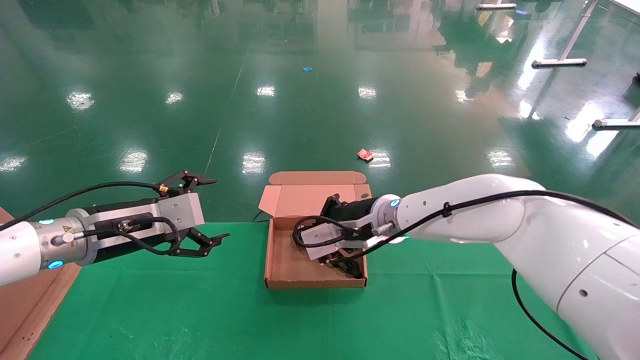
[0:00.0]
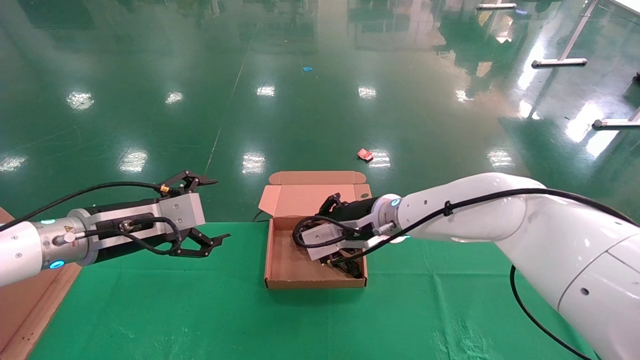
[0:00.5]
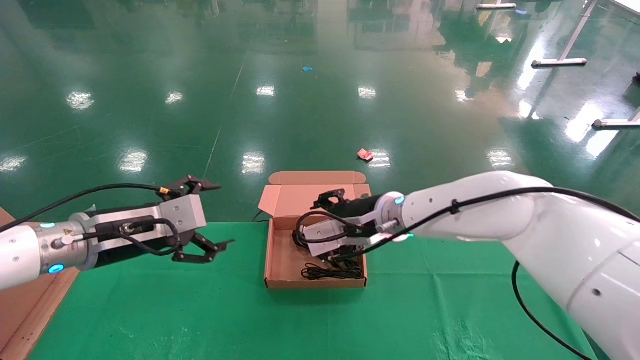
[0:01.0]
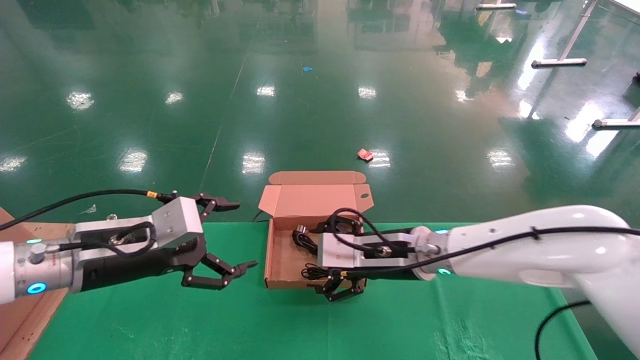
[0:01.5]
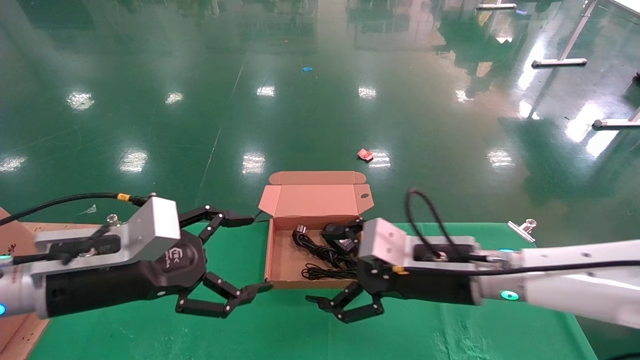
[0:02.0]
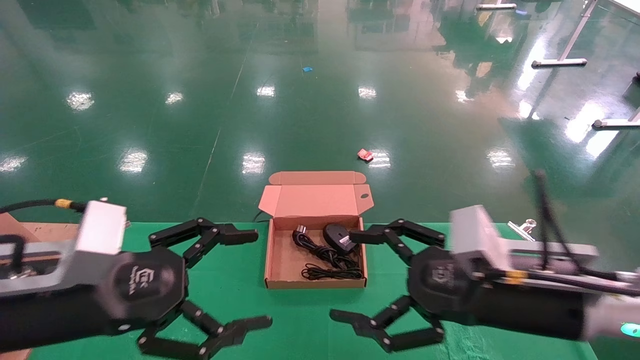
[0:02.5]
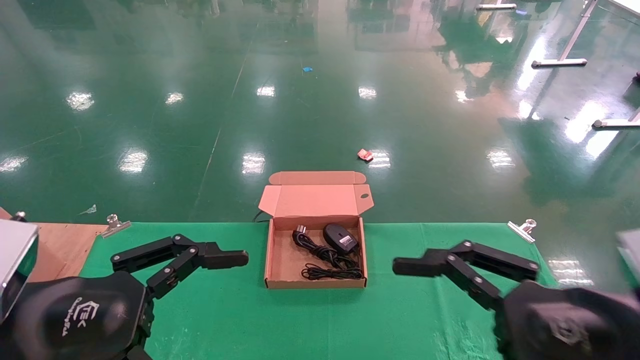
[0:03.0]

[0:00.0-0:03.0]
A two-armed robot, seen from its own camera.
0:00.0 to 0:01.5: The right gripper shifts about 5 cm backward, and opens its fingers.
0:01.5 to 0:03.0: The right gripper is displaced backward and to the right by approximately 25 cm. Meanwhile the left gripper moves backward, some 15 cm.
